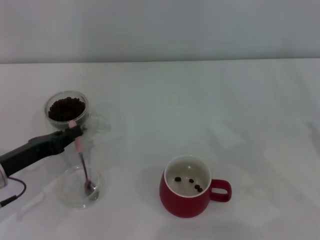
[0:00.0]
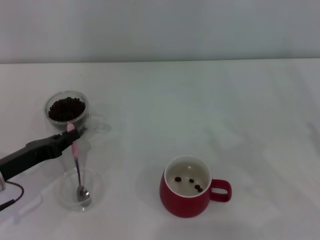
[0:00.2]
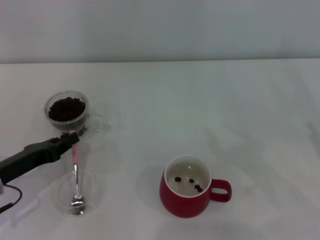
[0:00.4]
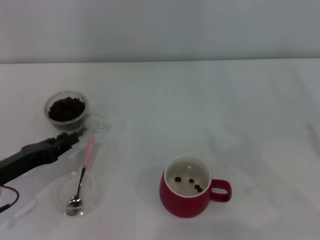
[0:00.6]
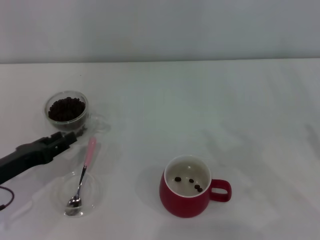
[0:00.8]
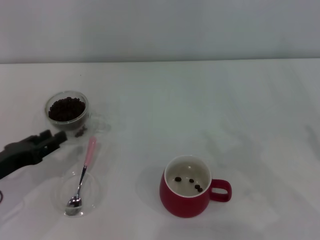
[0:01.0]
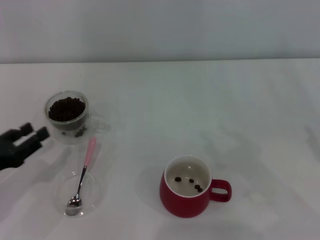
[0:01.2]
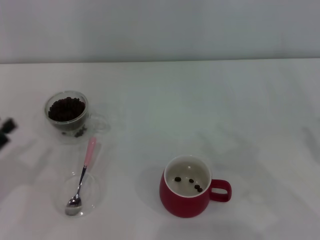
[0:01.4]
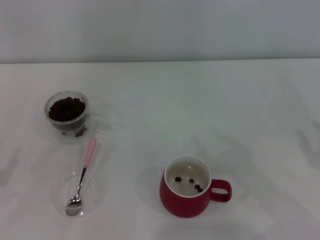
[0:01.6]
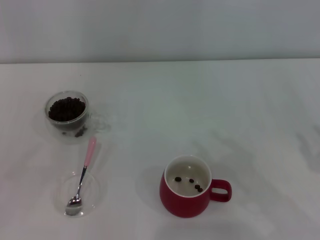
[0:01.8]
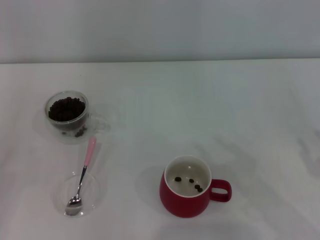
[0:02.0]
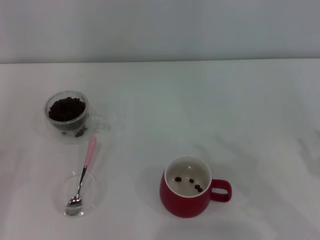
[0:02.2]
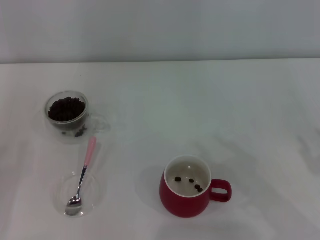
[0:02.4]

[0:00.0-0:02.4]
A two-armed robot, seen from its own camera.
Task of the whole recording: Use a pink spoon to take out the coffee beans from the glass and pour them into the red cup.
0:00.0 to 0:01.2: The left gripper ends up some 5 cm from where it was, and opens up.
0:01.2 to 0:02.4: The left gripper heads to the left and backward, covering some 10 cm.
